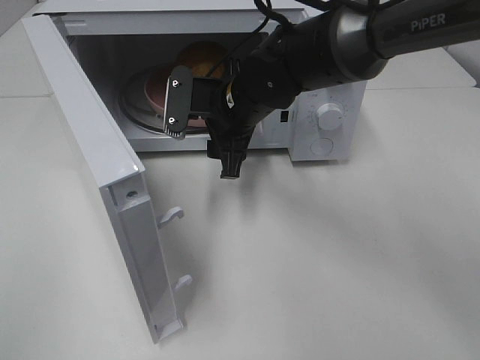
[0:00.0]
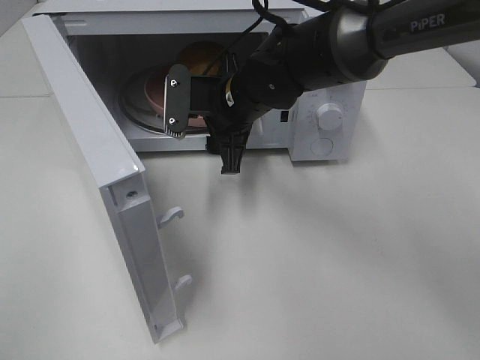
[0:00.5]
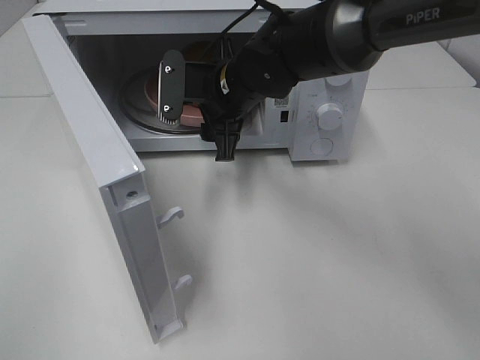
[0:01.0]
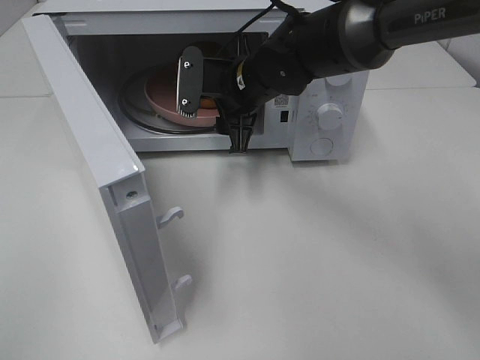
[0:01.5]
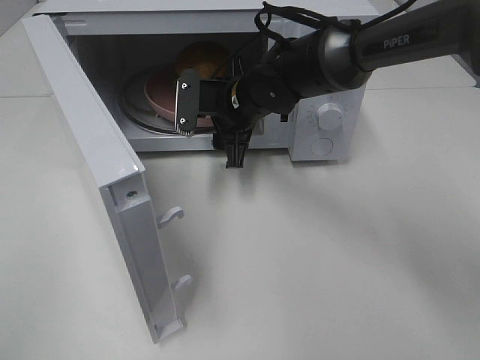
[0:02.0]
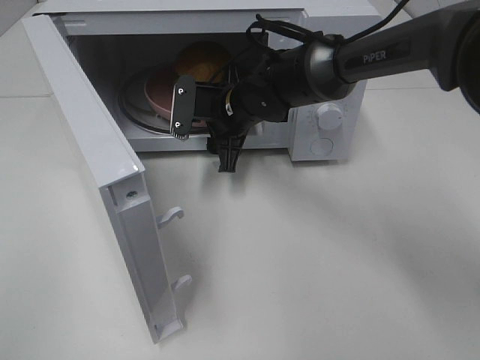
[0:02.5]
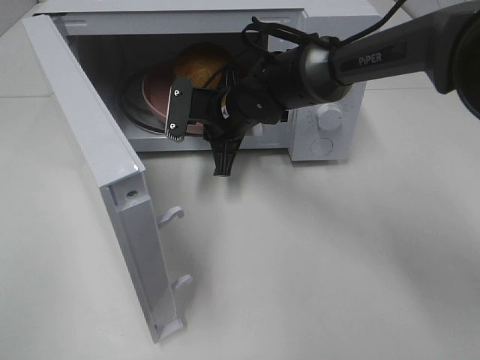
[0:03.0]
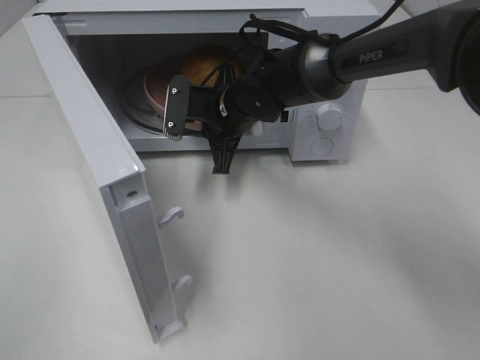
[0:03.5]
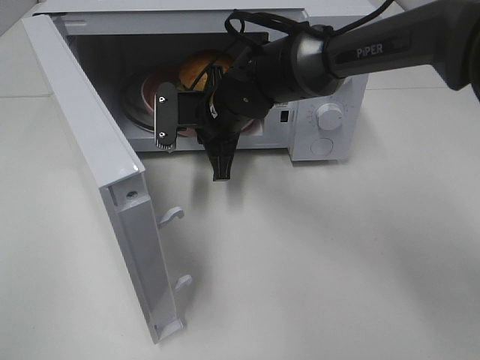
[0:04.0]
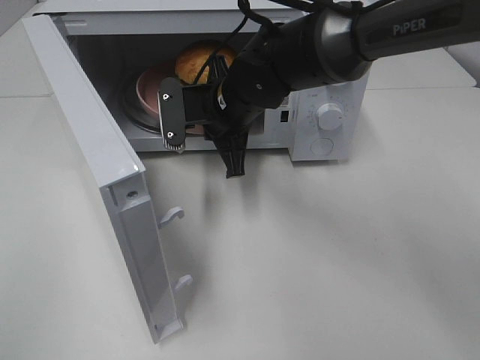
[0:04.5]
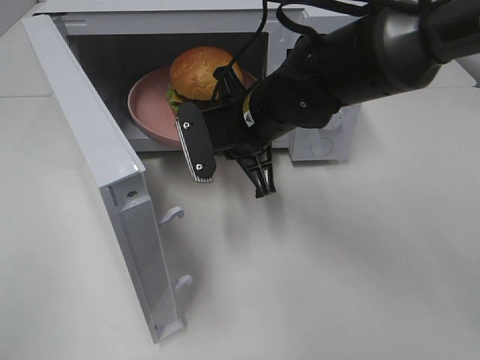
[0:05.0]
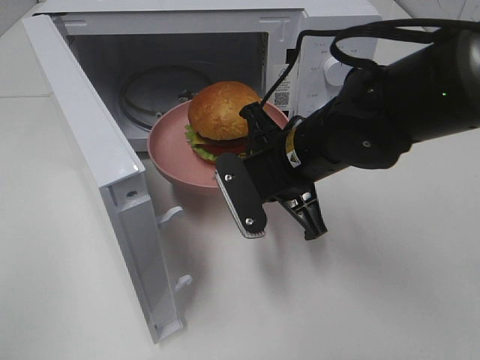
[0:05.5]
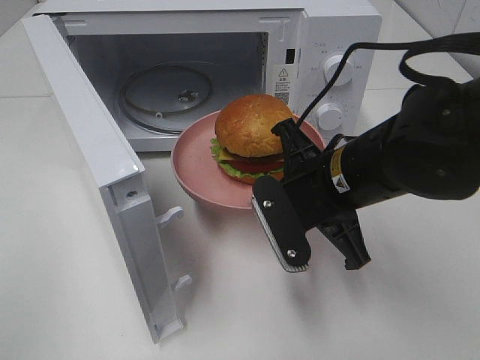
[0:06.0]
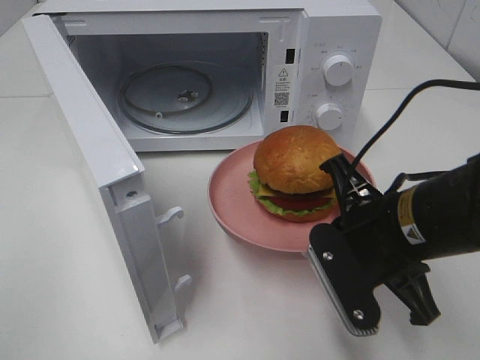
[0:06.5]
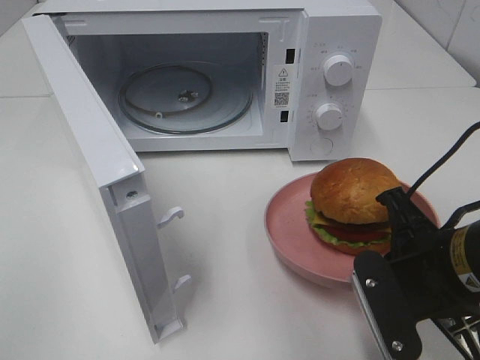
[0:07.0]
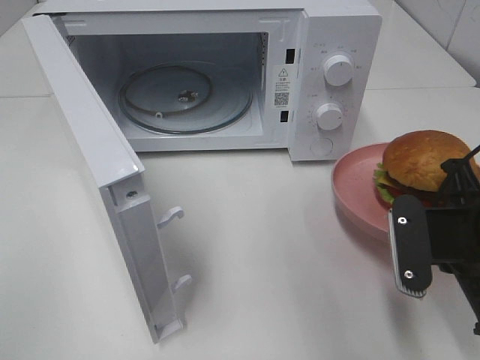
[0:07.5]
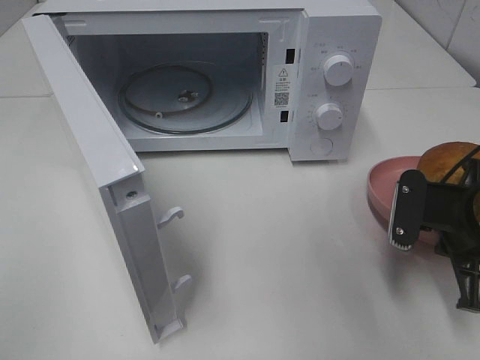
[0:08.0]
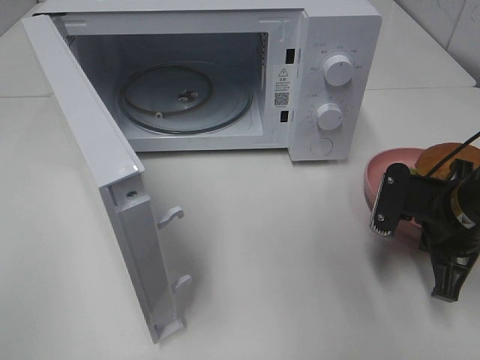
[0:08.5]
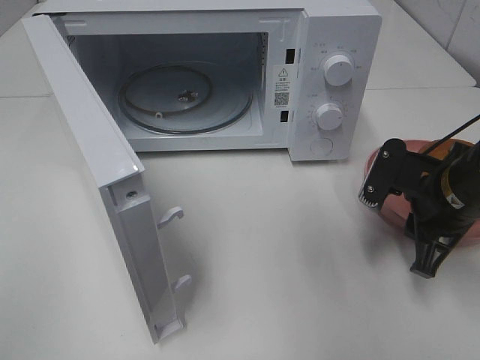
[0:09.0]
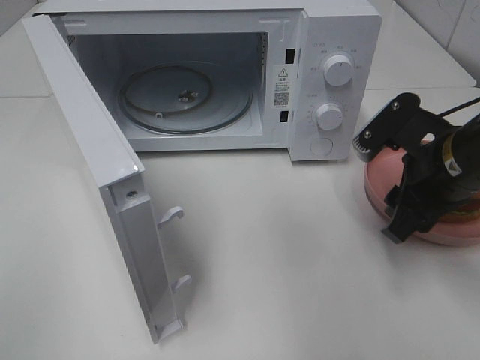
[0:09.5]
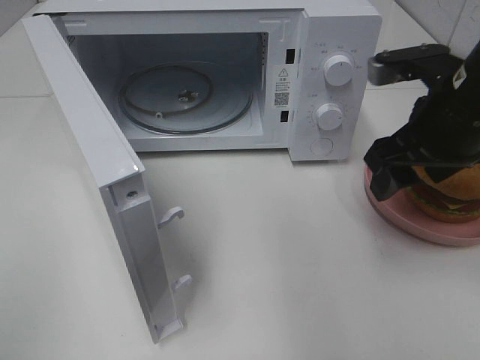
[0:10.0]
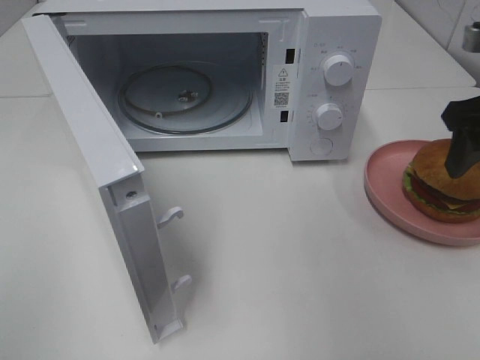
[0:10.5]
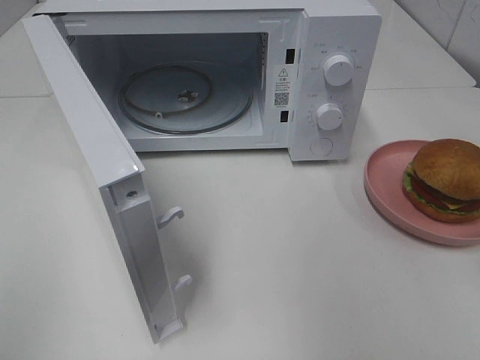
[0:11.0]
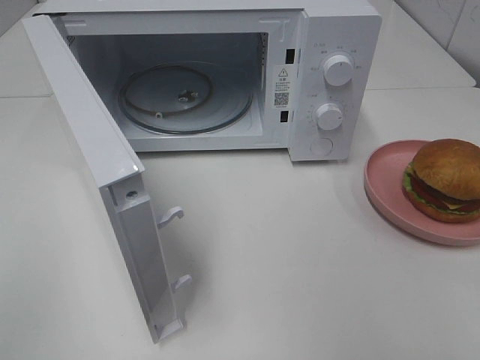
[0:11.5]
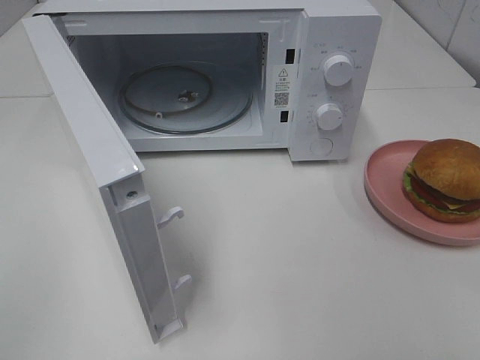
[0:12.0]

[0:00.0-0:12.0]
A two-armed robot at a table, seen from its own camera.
Task of the whole recording: Heat the burger.
Step, 0:00.0 to 0:02.5: Right hand: grab the plate with the hamburger.
Step, 0:03.0 to 0:08.5: Right hand: place the plate on the table.
0:00.0 to 0:02.0: The grippers move only a little.
0:02.0 to 0:04.0: The right gripper closes up.
0:04.0 to 0:06.0: The right gripper travels backward and to the right by approximately 20 cm.
0:06.0 to 0:08.0: The right gripper shifts about 15 cm to the right.
0:08.0 to 0:10.0: The right gripper travels upward by roughly 10 cm, and opens its fingers.
0:10.0 to 0:12.0: The right gripper heads backward, covering about 25 cm.

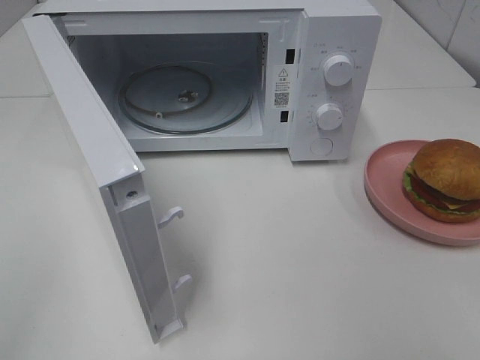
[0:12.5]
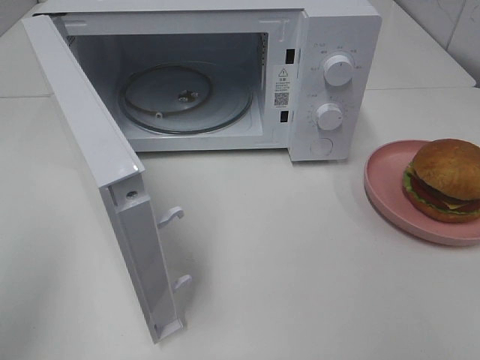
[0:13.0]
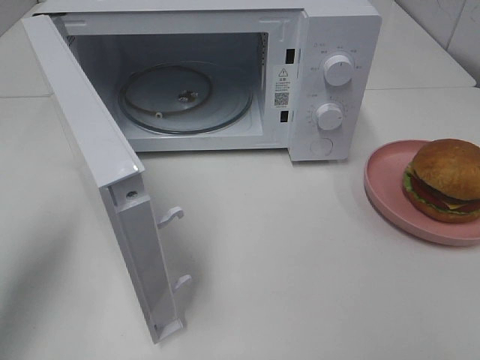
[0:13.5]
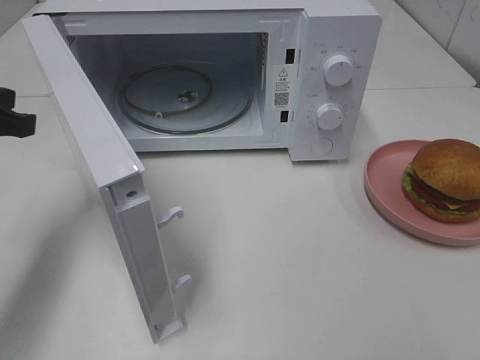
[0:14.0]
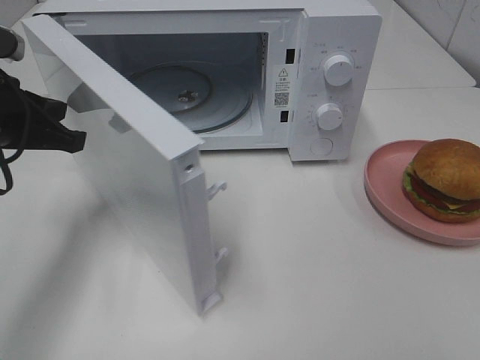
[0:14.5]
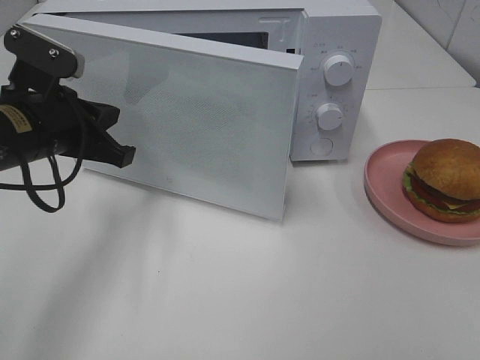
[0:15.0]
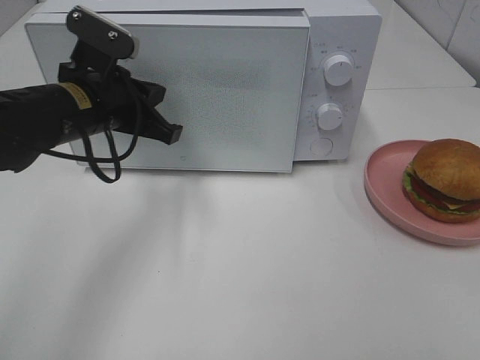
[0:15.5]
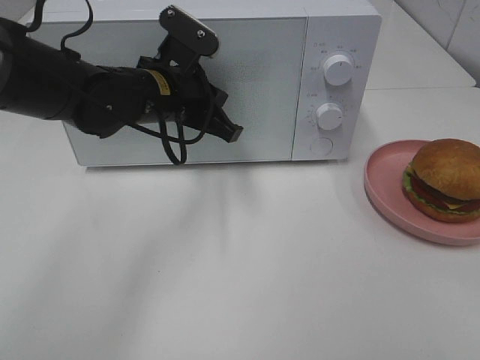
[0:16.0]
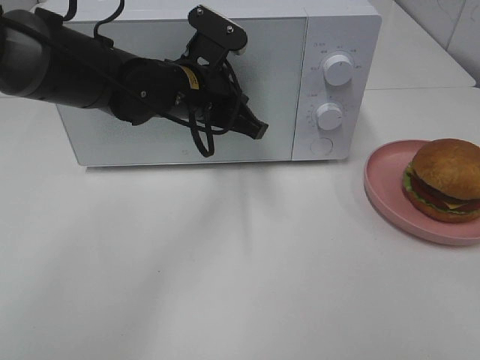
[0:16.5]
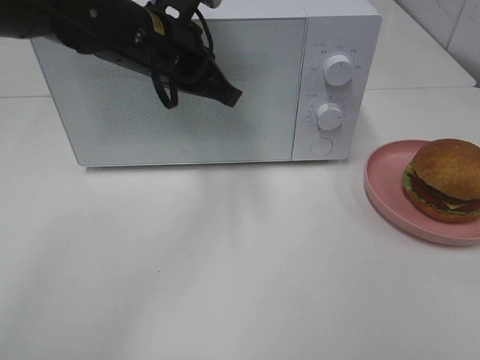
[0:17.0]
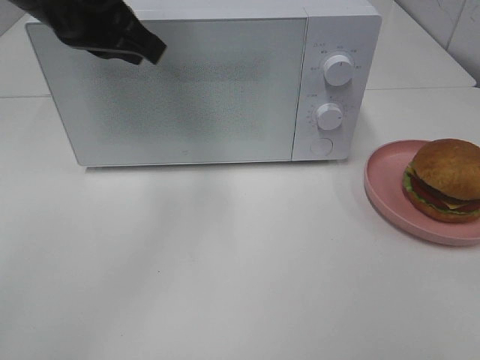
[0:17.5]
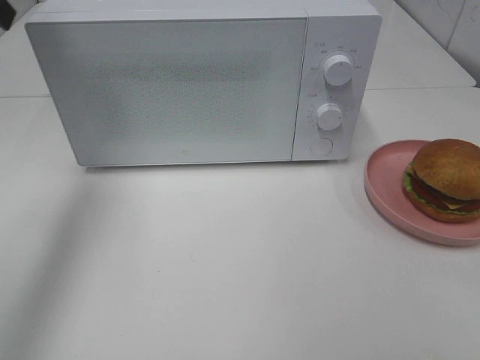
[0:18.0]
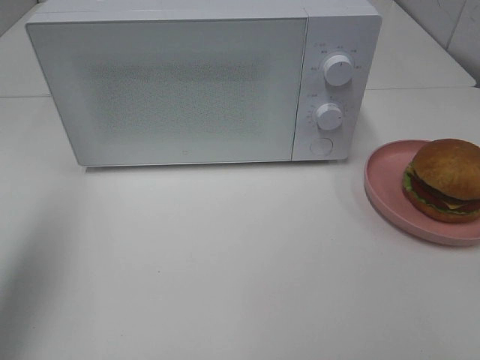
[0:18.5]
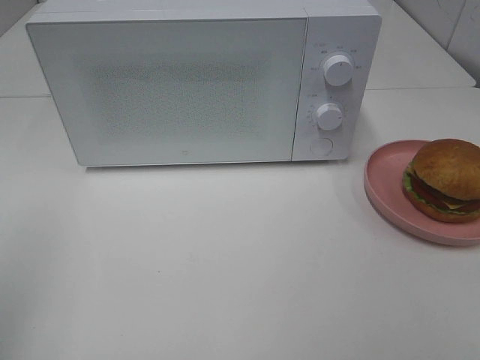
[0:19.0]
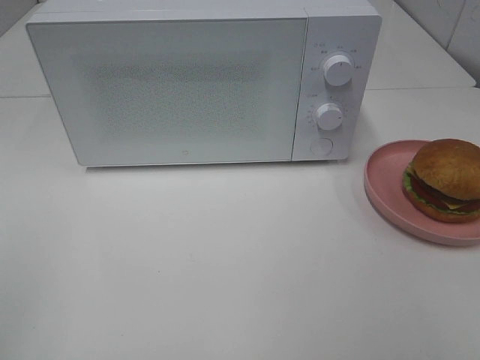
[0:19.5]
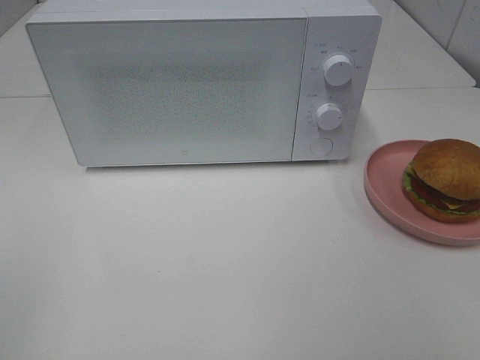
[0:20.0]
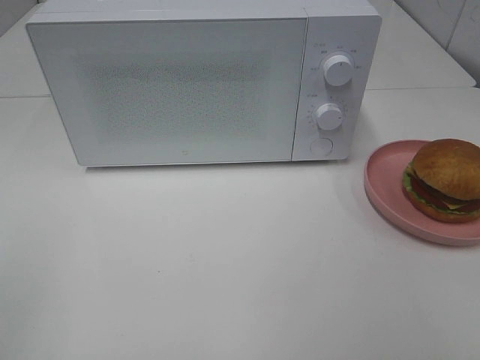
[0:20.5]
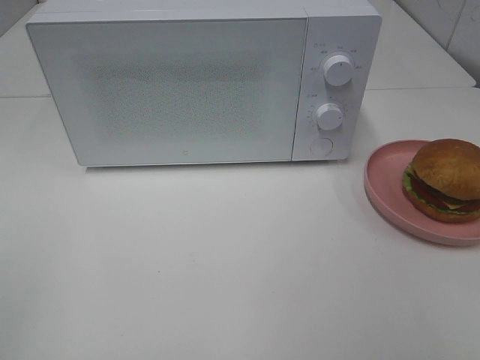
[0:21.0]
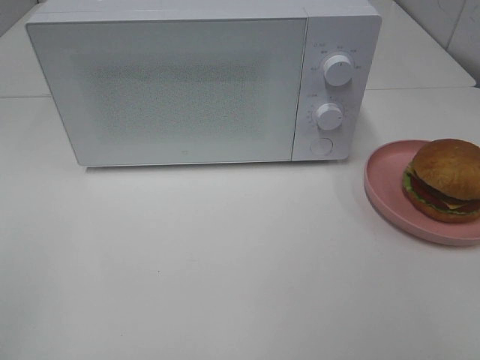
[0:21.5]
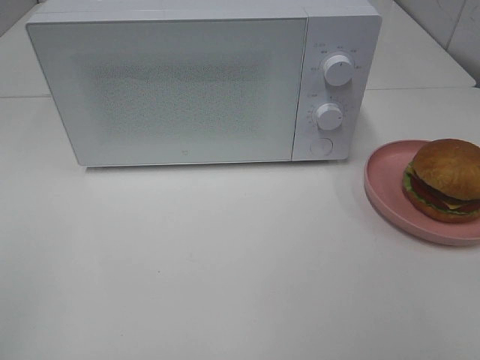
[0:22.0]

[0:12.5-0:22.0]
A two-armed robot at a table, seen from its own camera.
Task of the whole recording: Heat the burger.
Step, 0:12.5 to 0:16.5: Left hand: close the microwave door.
0:12.5 to 0:14.5: The left gripper goes roughly 30 cm forward.
0:14.5 to 0:16.5: The left gripper heads to the right and forward, covering roughly 20 cm, and opens.
0:16.5 to 0:18.0: The left gripper travels to the left and upward by approximately 25 cm.
0:18.0 to 0:20.0: The left gripper shifts roughly 30 cm backward.

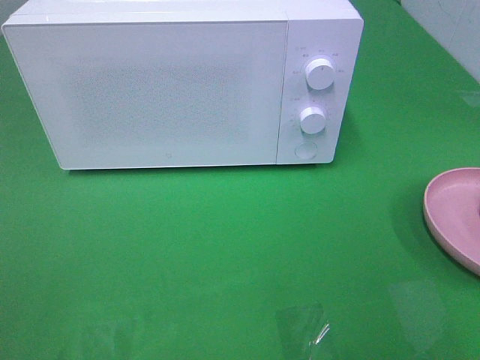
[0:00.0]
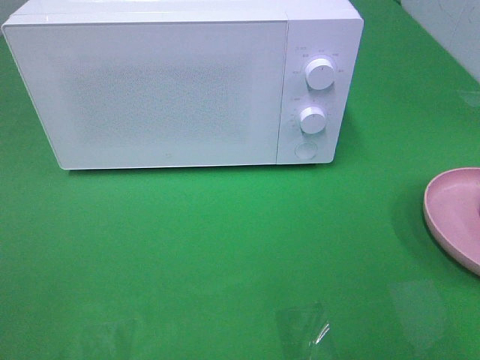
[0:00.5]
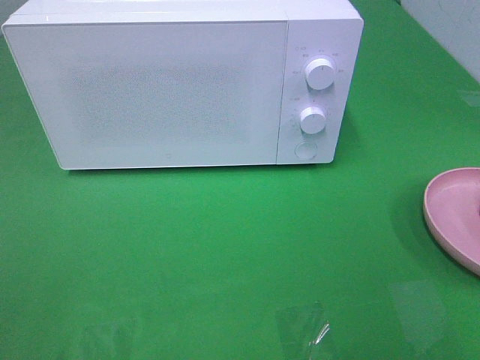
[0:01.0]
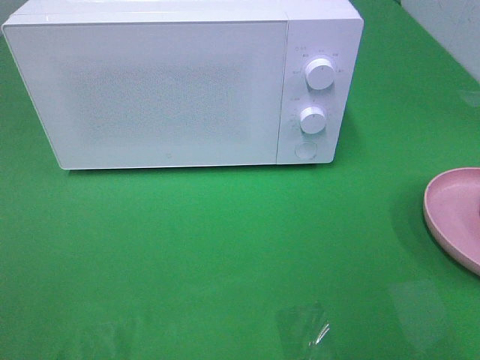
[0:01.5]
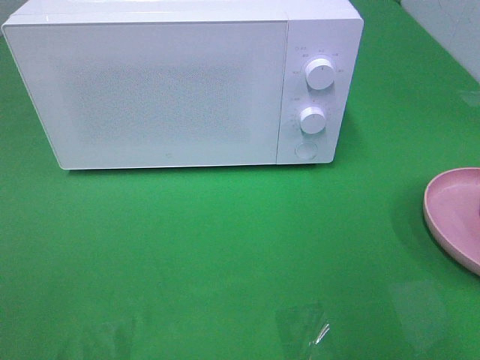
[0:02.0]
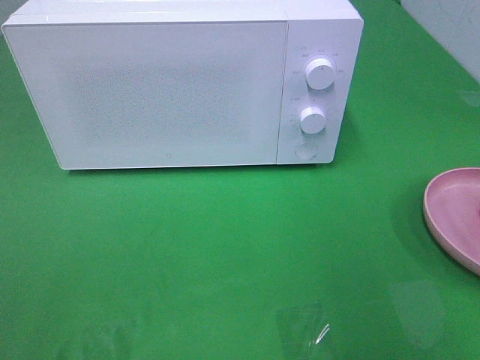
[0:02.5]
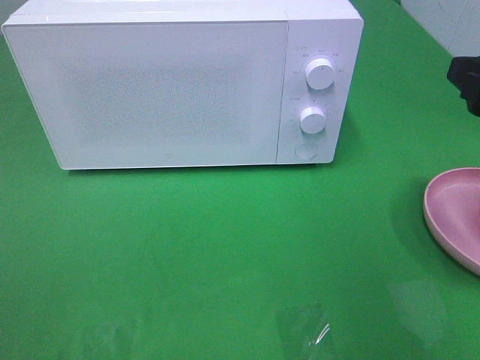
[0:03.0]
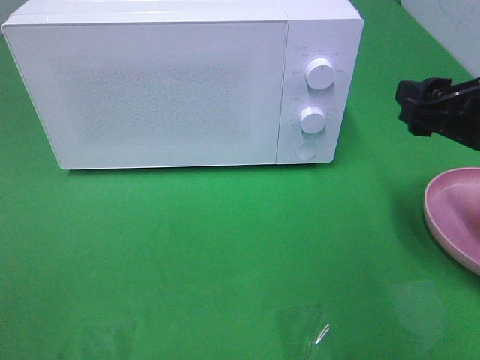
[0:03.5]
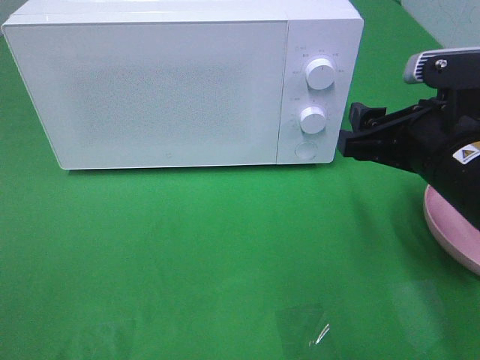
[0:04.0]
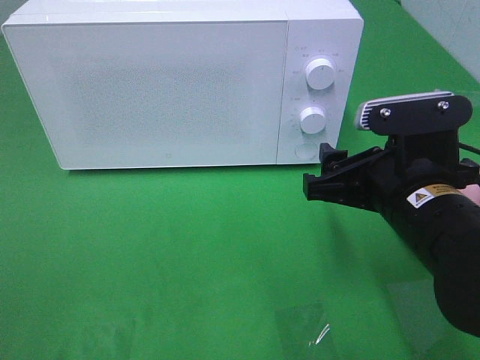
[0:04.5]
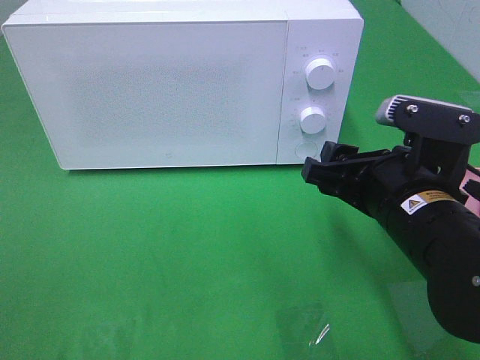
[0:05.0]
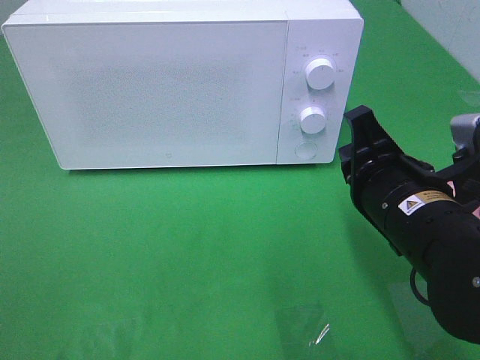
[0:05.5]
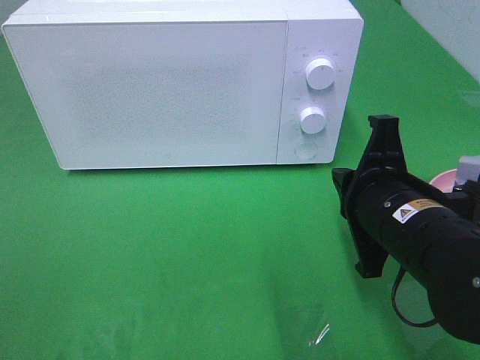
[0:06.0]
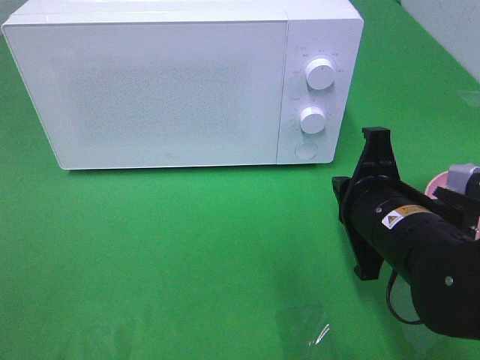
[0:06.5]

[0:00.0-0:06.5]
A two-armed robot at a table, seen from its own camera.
Task of the whole recording: Heat the burger.
0:02.0 to 0:04.5: The right gripper goes approximately 20 cm downward, to the left and forward.
0:04.5 to 0:06.5: The right gripper closes.
